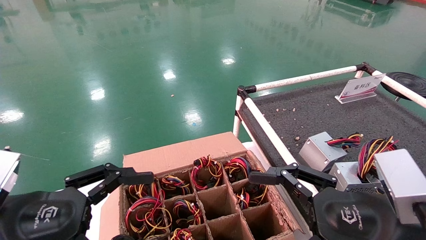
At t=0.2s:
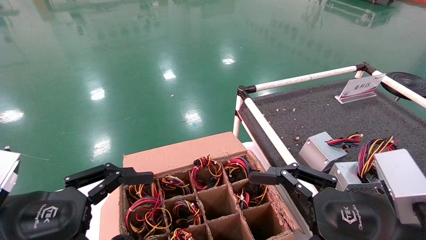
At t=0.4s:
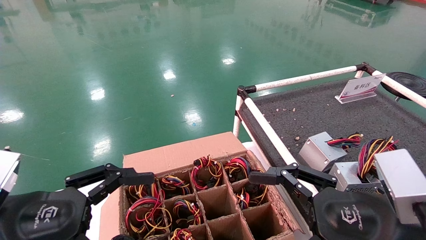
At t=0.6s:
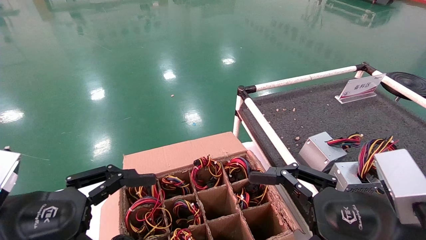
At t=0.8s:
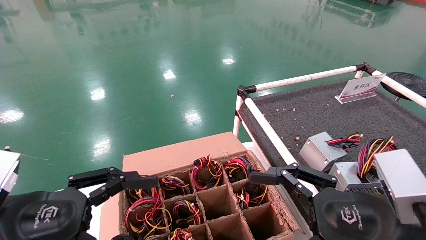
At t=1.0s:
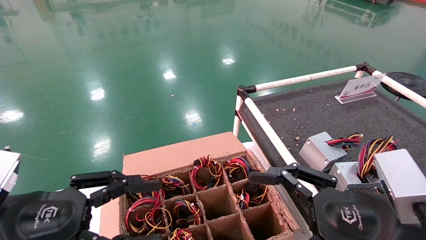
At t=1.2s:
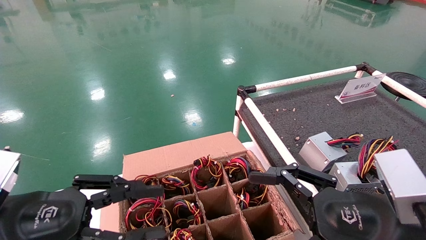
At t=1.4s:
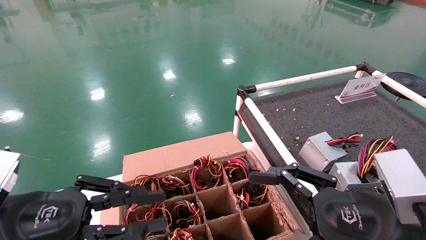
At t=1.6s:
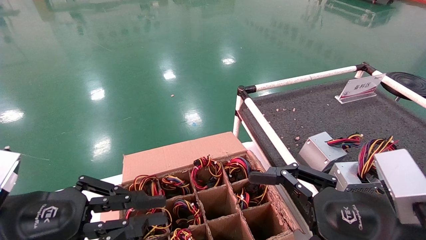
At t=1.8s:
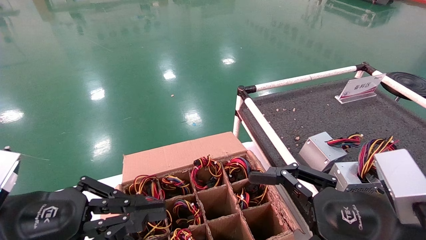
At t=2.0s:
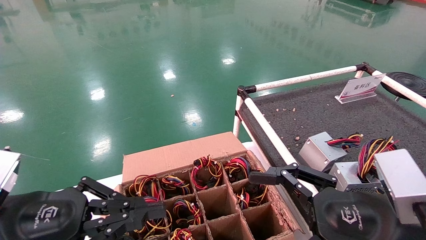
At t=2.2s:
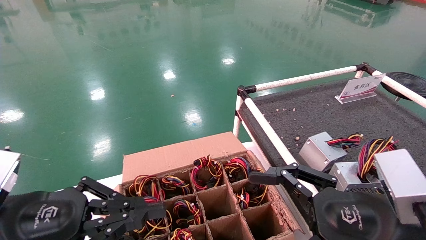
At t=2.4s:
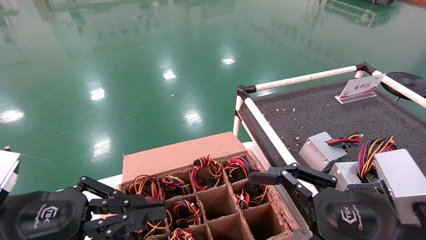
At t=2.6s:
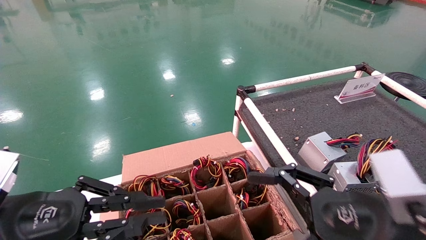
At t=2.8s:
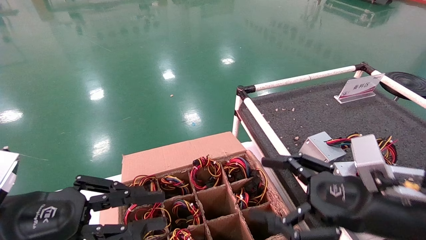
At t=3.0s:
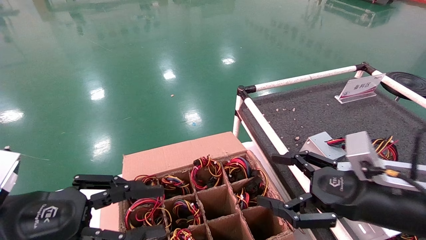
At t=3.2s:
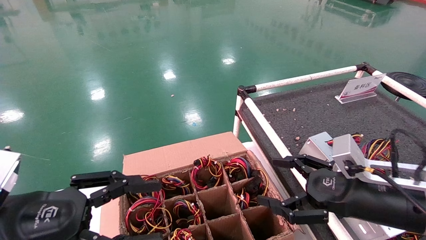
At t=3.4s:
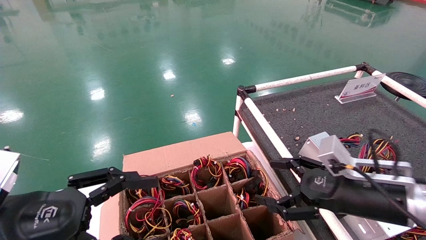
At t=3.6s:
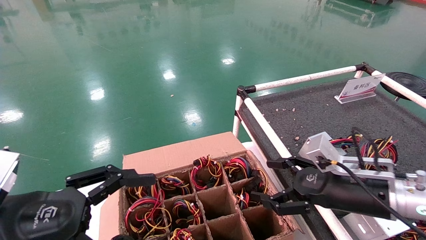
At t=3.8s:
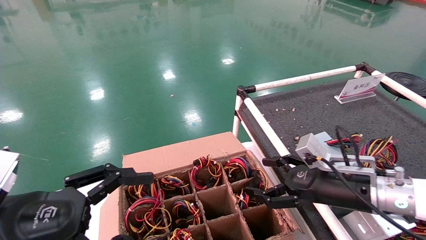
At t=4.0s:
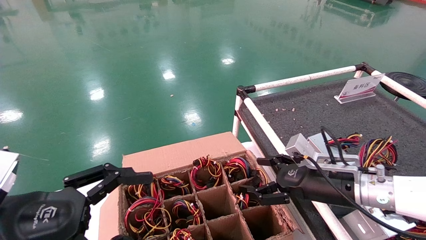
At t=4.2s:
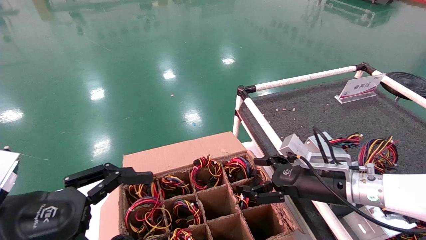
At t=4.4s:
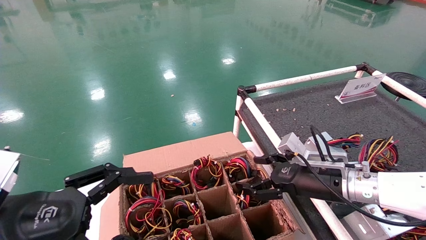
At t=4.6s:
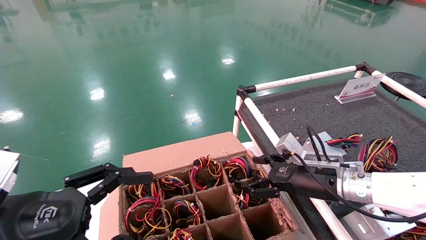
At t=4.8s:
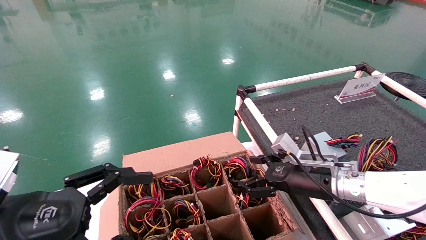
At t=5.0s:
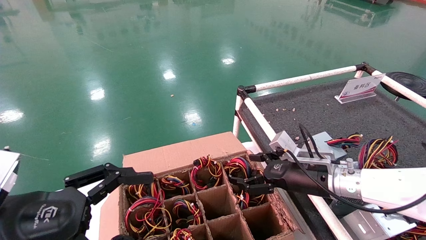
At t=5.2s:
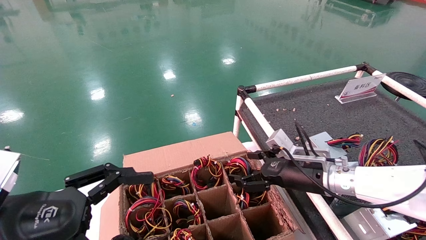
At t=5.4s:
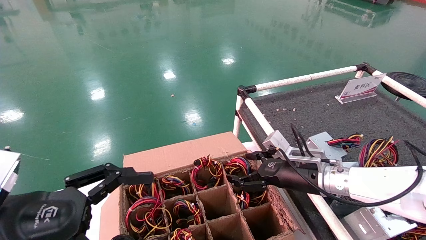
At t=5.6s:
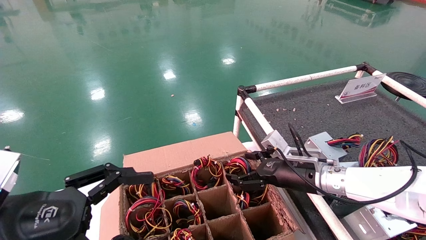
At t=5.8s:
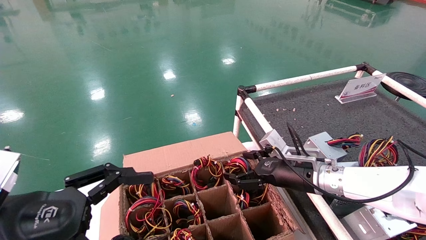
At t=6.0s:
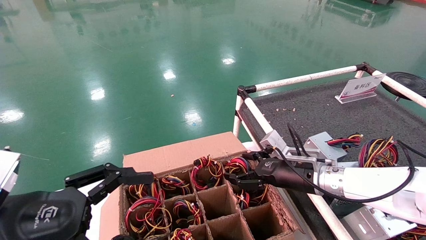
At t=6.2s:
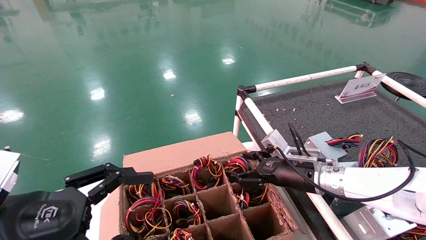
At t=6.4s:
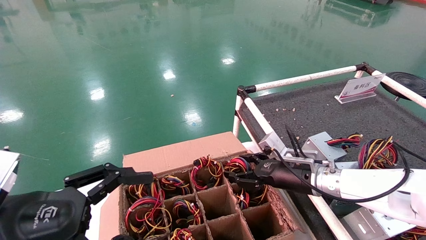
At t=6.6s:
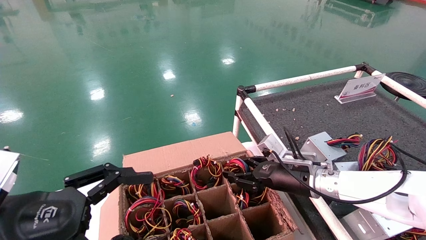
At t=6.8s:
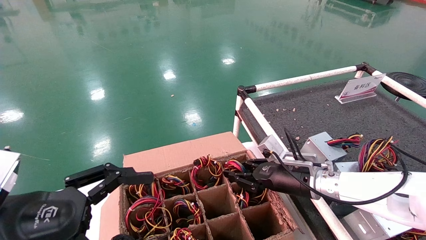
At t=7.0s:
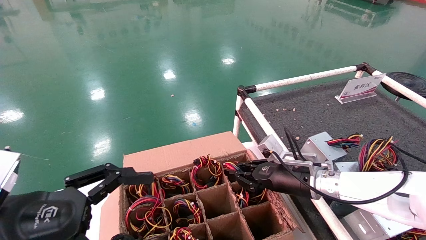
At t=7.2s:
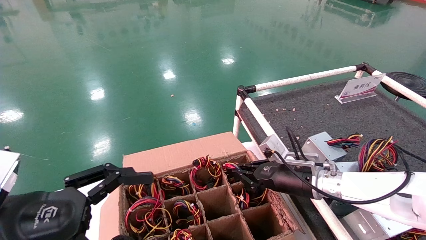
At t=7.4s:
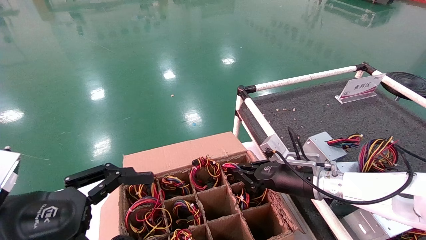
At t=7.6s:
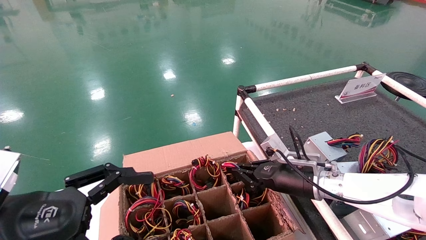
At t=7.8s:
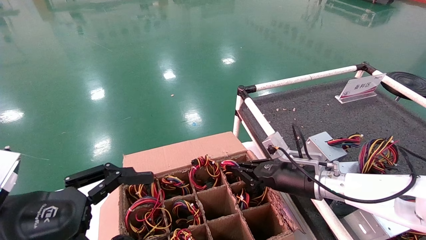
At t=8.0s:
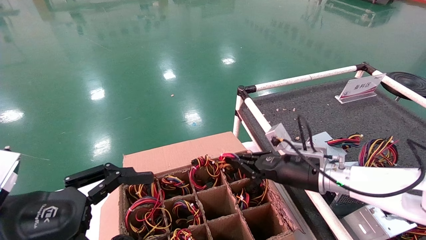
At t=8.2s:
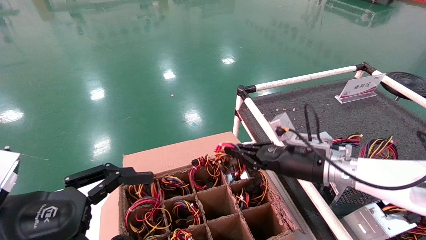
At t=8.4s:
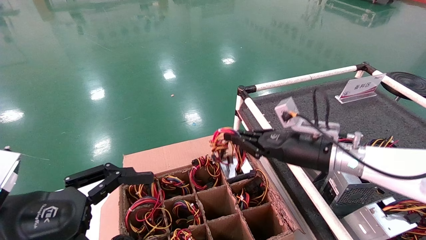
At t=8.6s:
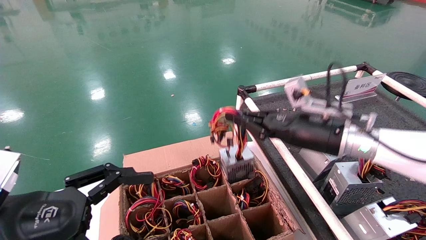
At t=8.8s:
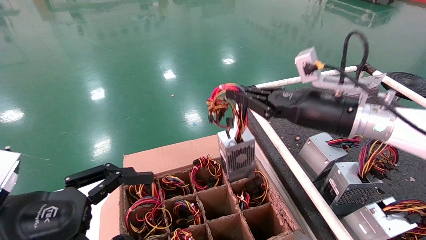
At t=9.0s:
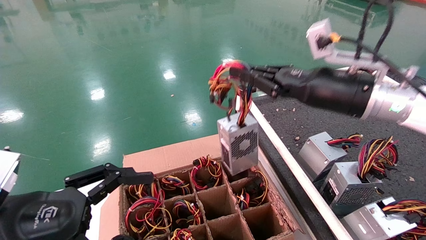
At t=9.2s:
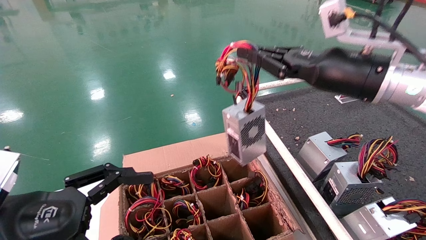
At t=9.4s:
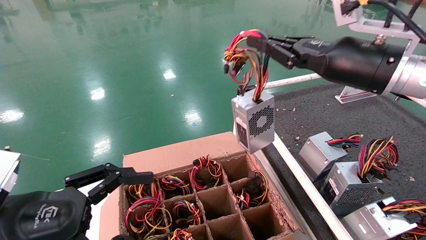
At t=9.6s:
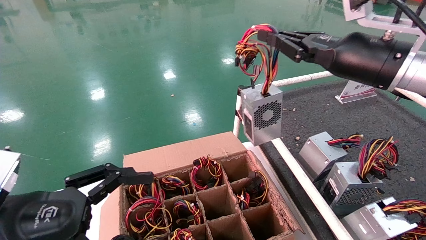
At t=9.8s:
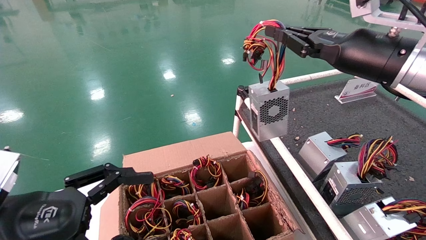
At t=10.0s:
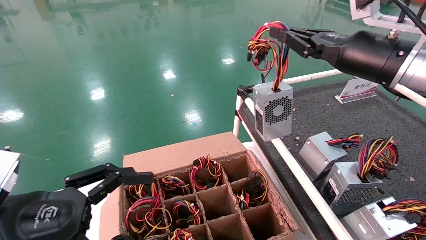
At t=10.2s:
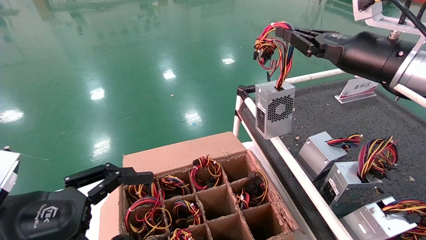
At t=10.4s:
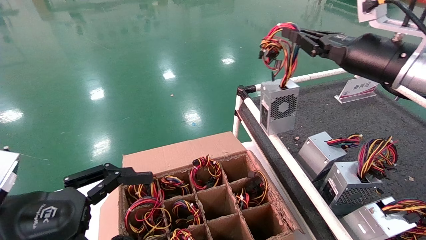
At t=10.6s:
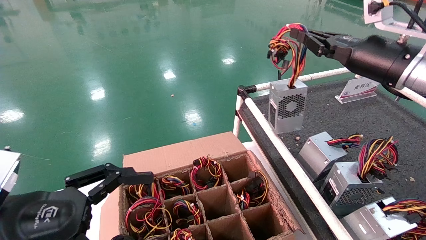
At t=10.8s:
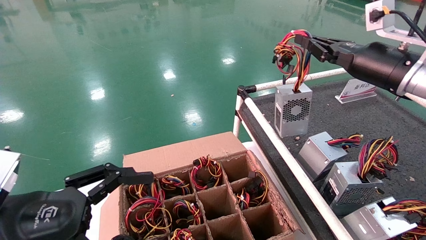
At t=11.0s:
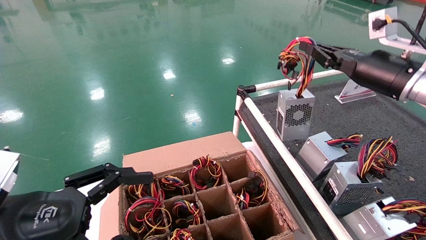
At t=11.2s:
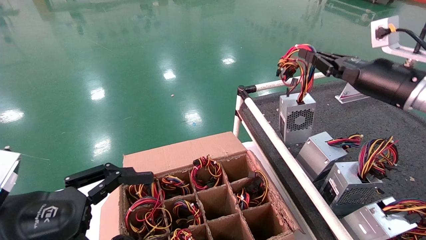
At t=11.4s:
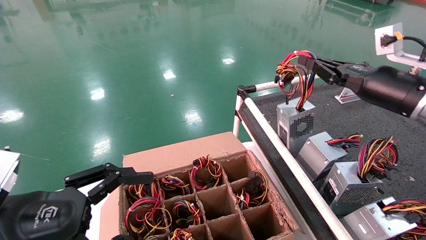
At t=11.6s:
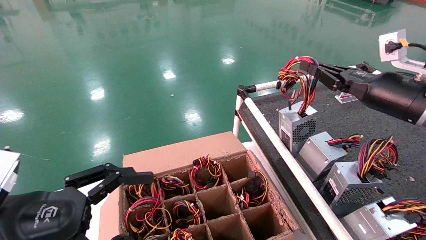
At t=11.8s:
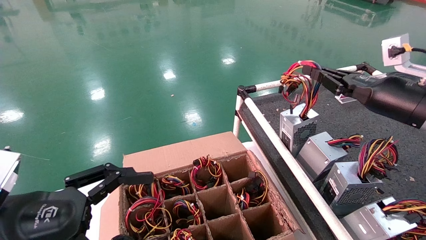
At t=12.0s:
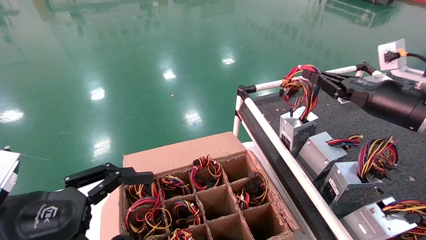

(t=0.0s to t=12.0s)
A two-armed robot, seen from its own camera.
Step, t=3.0s - t=7.2s: Grab and lift the power supply from the large box.
t=0.0s - t=1.6s: The left gripper closes up.
t=1.6s - t=3.0s: The right gripper travels forward by roughly 5 cm.
t=3.0s - t=4.4s: The right gripper travels forward by approximately 10 cm. Meanwhile the left gripper opens up.
t=4.4s - t=6.0s: The right gripper ends up roughly 5 cm from where it was.
t=6.0s - t=7.6s: The right gripper closes its fingers.
t=7.6s - t=9.0s: The right gripper shifts some 20 cm upward.
t=9.0s - t=10.4s: The right gripper travels to the right by approximately 5 cm.
t=10.4s - t=12.0s: The right gripper heads downward and to the right, covering about 10 cm.

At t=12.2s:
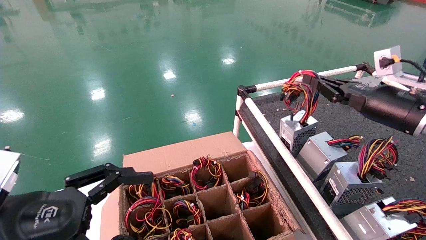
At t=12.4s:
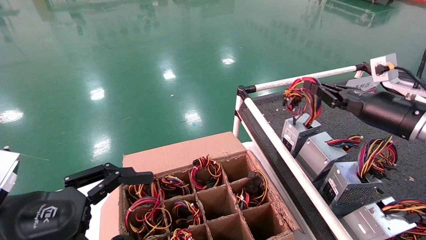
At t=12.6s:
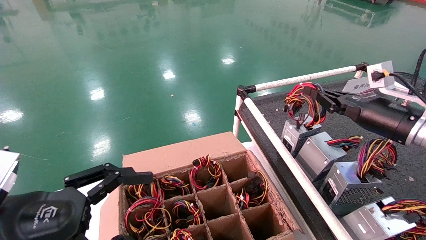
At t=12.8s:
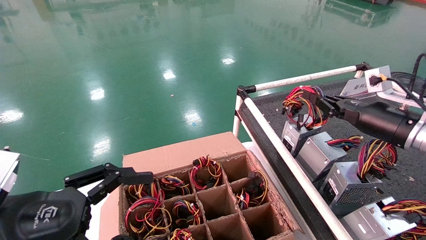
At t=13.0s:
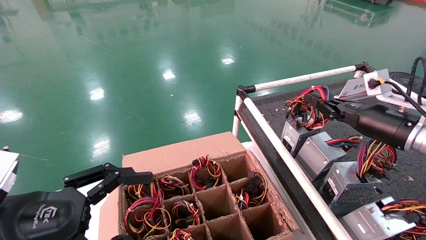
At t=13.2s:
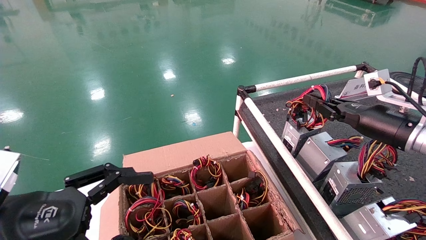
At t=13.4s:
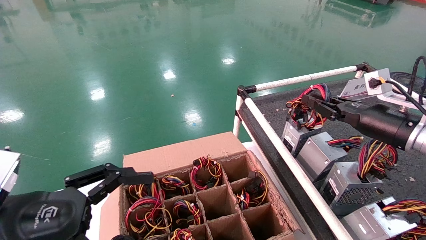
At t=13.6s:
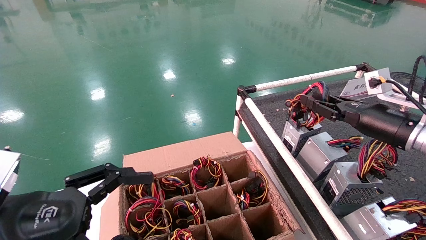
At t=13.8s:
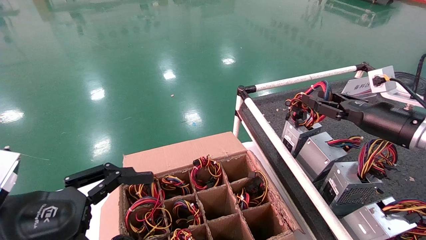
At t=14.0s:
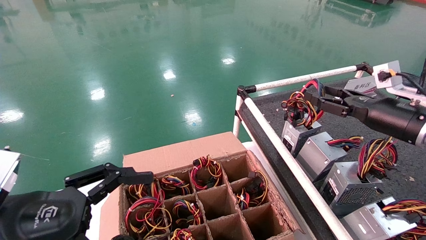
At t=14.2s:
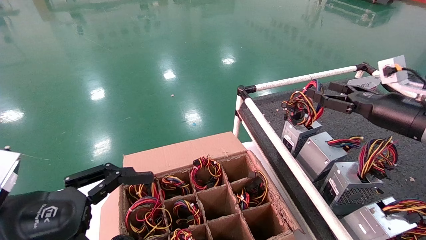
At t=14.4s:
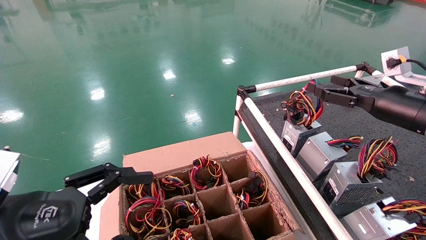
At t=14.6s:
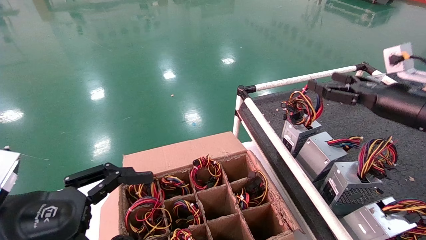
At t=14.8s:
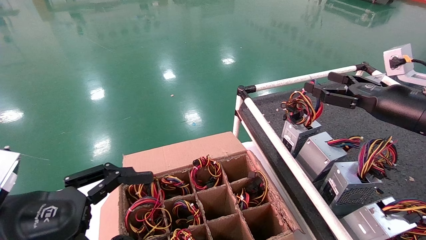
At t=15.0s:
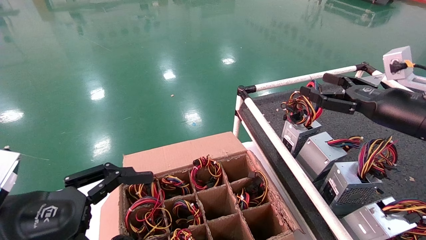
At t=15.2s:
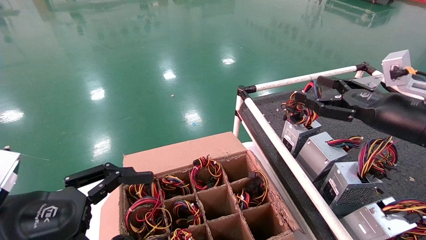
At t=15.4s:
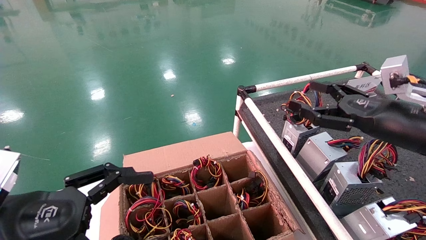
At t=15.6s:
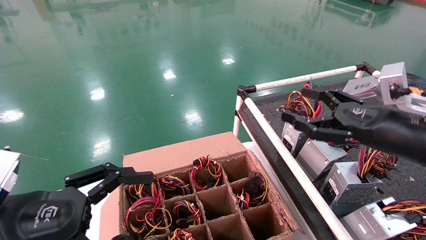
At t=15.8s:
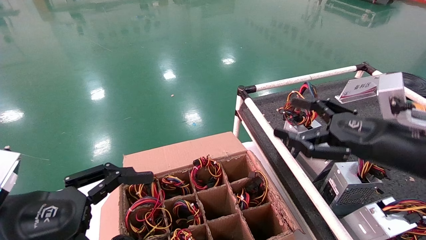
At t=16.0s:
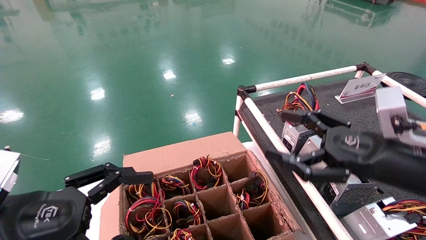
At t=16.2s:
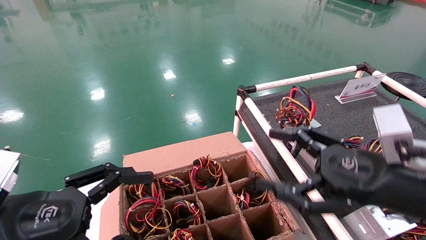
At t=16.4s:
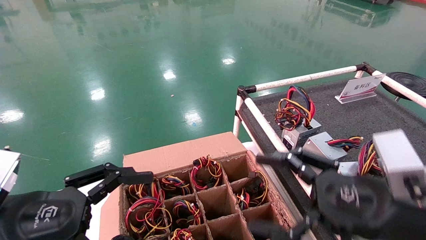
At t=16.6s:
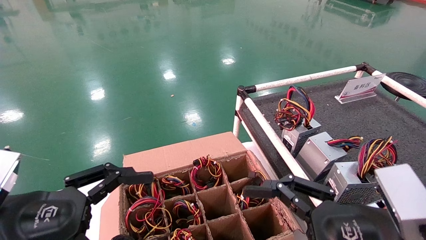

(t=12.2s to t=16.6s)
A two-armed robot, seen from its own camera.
t=12.2s - t=13.6s: The grippers move only a little.
t=13.6s - t=15.2s: The right gripper goes some 5 cm backward, and opens its fingers.
t=15.2s - t=16.6s: The right gripper is displaced backward, to the left and downward by about 20 cm.
